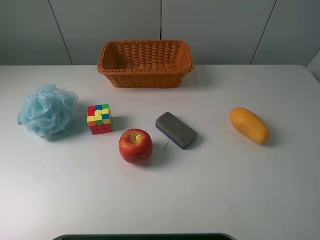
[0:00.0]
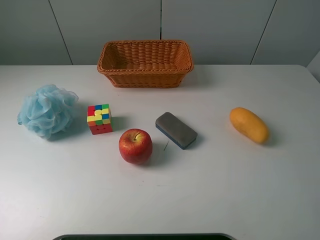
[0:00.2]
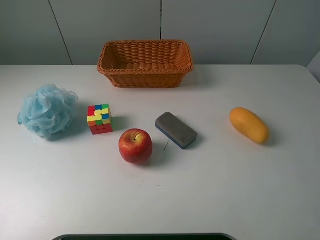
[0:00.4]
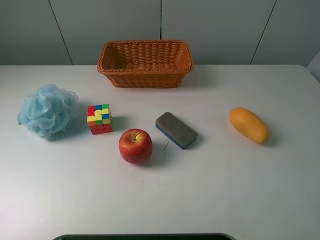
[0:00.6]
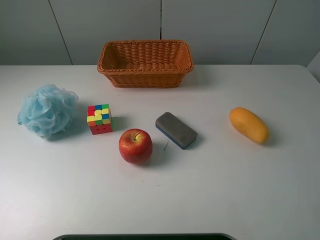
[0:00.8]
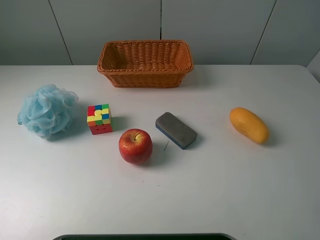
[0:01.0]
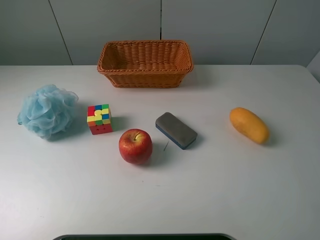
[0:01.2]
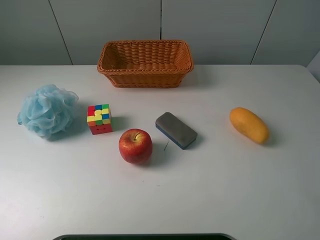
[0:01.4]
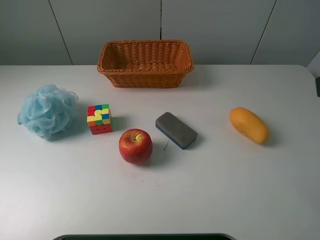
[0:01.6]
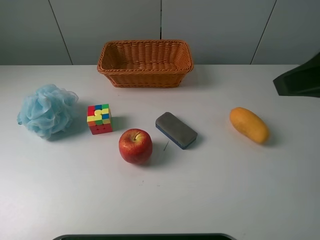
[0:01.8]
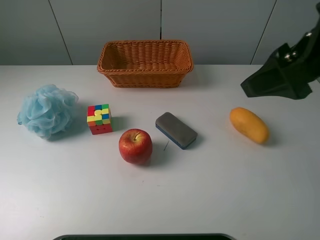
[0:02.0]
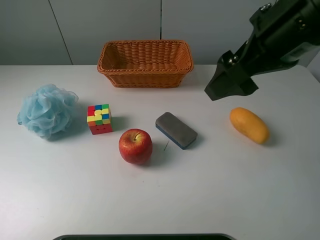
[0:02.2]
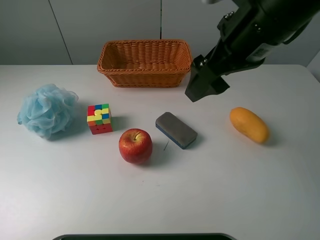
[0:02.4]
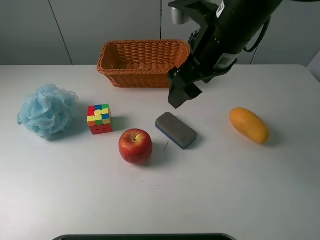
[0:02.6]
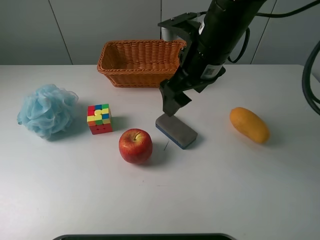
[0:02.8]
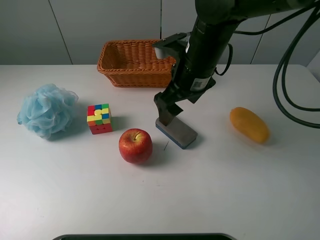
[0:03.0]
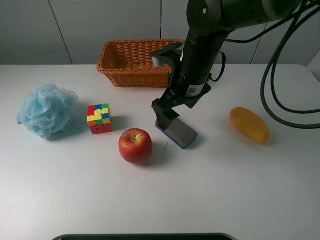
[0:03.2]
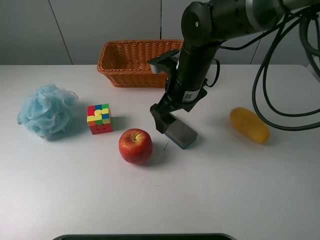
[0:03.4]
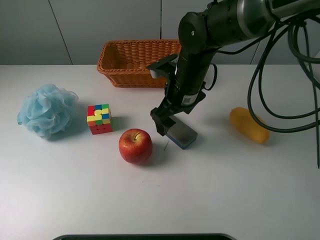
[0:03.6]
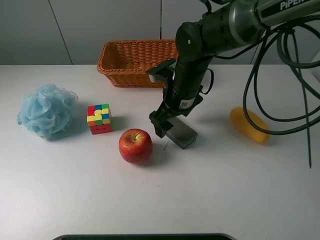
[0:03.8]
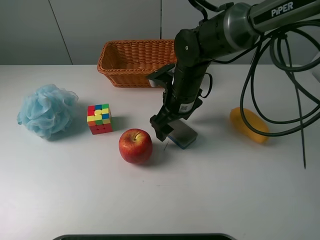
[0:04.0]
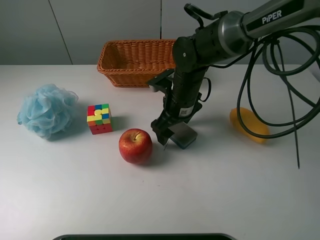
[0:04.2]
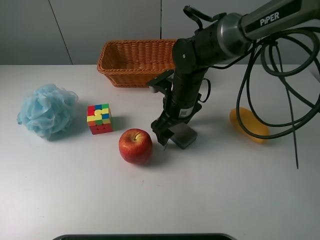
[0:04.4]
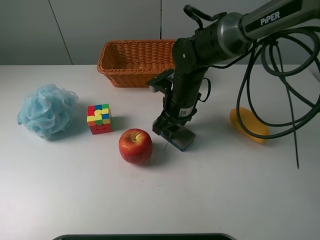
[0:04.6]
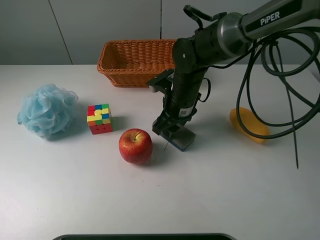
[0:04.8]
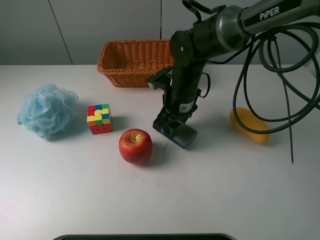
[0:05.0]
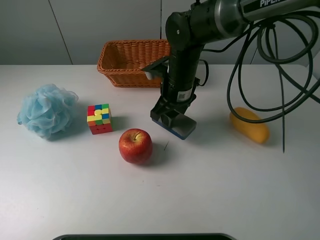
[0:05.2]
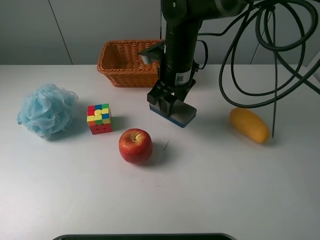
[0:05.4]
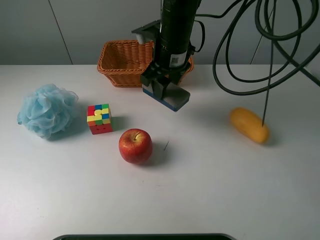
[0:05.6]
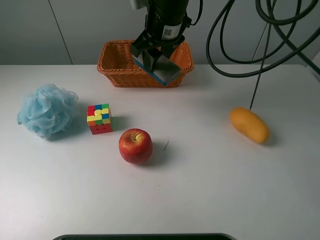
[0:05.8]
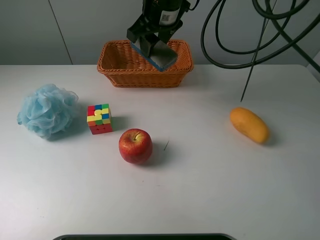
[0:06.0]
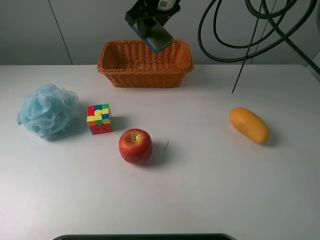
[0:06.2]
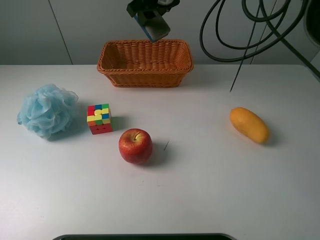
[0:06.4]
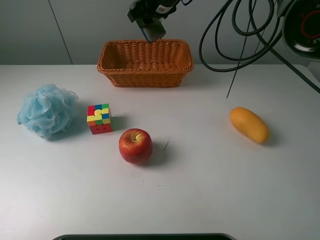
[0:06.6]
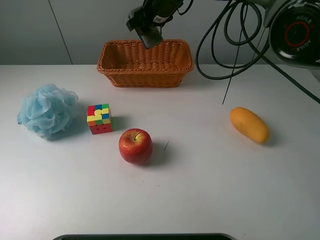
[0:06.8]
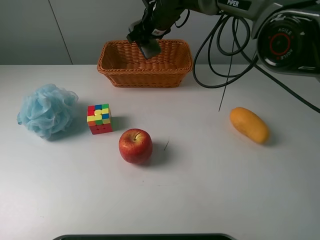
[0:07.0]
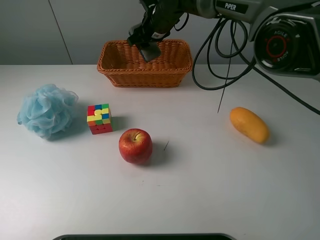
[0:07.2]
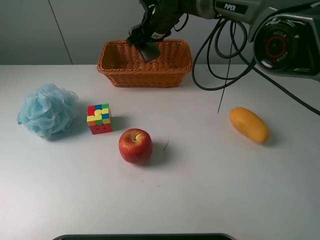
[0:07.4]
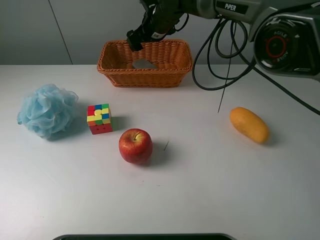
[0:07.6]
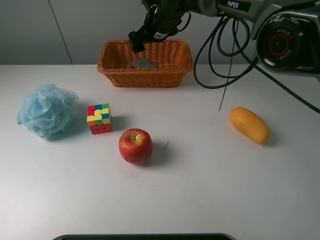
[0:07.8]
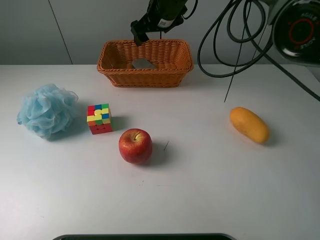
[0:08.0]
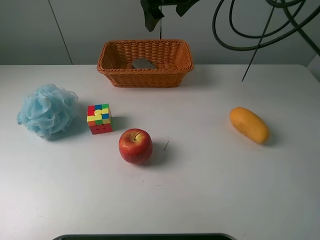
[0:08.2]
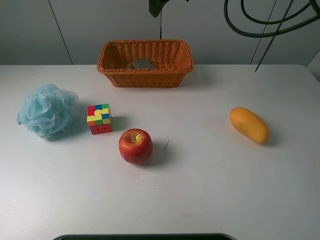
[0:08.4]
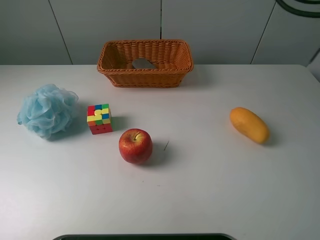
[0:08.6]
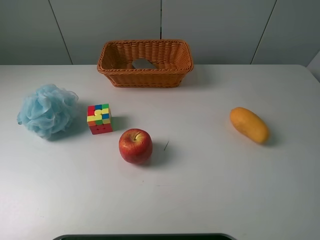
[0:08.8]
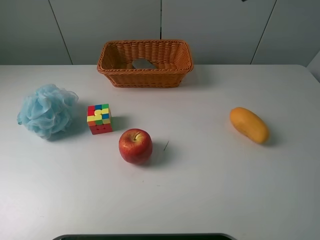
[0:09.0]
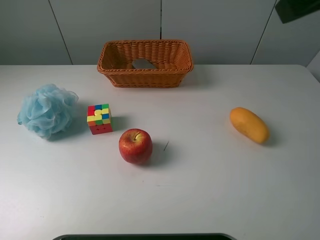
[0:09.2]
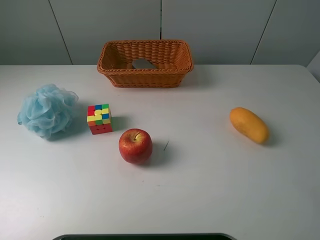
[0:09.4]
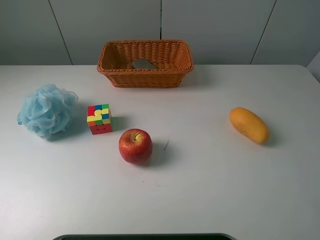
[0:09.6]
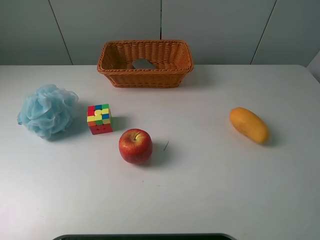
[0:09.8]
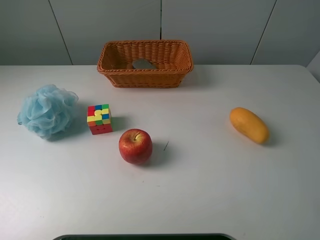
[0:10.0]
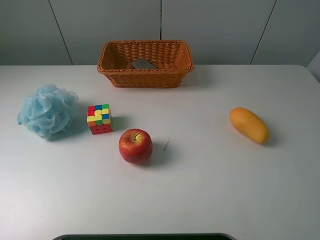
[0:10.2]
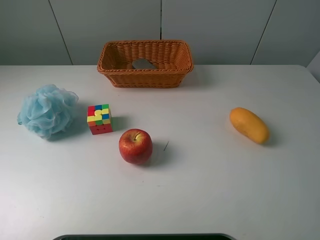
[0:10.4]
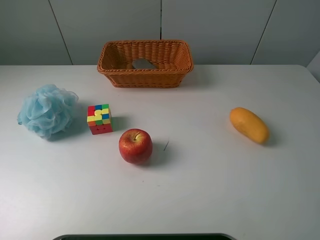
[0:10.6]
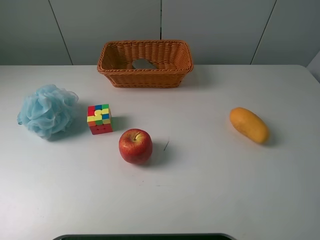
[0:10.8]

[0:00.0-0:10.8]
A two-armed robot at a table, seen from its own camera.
Task of the whole recording: use a picker to grab the item closest to the apple and place it in the basket.
Step, 0:00.0 to 0:04.8: Grasp the Rubik's Cube with the right gripper.
Step, 0:05.0 to 0:08.0: Place the Rubik's Cube into the basket with the right gripper.
0:01.6 to 0:03.0: The right gripper travels forward, to the left and downward by roughly 30 cm.
0:03.0 to 0:04.6: The right gripper is displaced downward by about 10 cm, and closes up.
0:04.6 to 0:06.2: The right gripper travels upward and forward by about 20 cm.
0:06.2 to 0:07.8: The right gripper travels downward and forward by some 10 cm, and opens its fingers.
0:07.8 to 0:09.2: The right gripper shifts roughly 40 cm backward, upward and to the right.
0:09.2 to 0:10.8: The right gripper heads backward, downward and to the right, covering some 20 cm.
